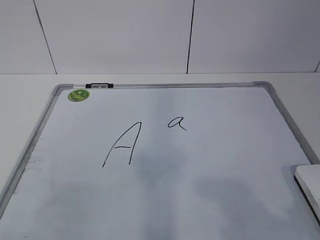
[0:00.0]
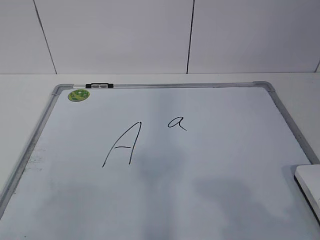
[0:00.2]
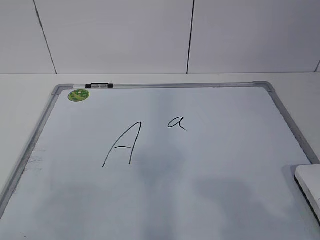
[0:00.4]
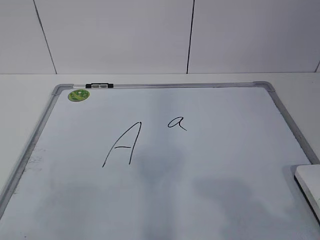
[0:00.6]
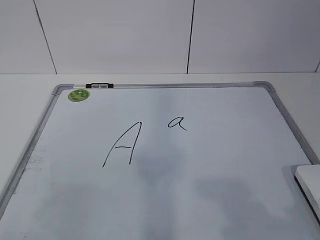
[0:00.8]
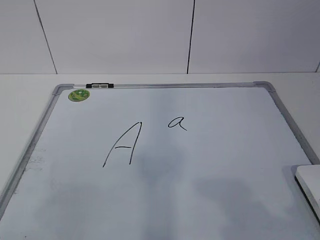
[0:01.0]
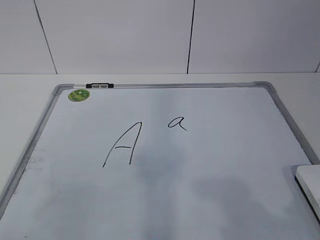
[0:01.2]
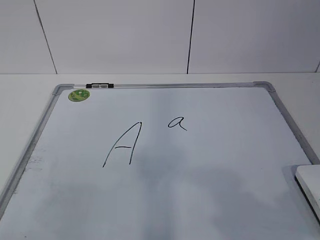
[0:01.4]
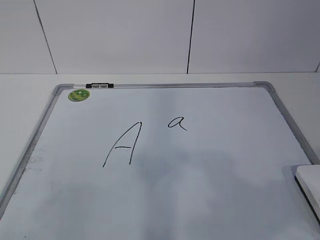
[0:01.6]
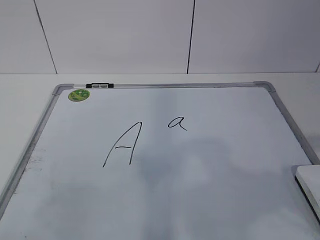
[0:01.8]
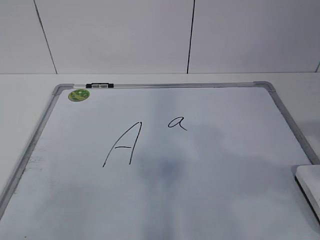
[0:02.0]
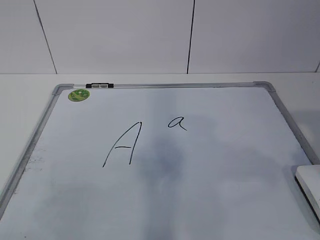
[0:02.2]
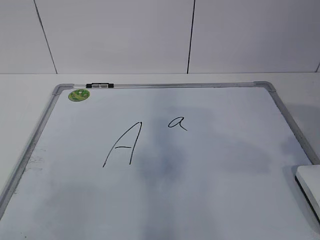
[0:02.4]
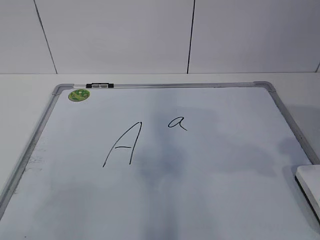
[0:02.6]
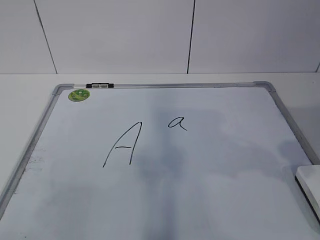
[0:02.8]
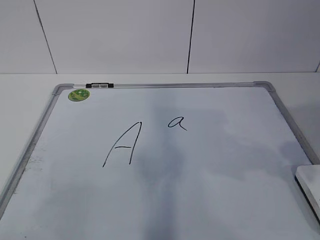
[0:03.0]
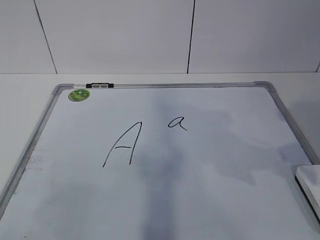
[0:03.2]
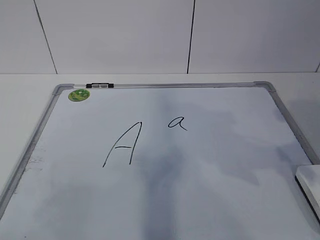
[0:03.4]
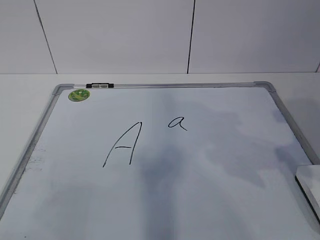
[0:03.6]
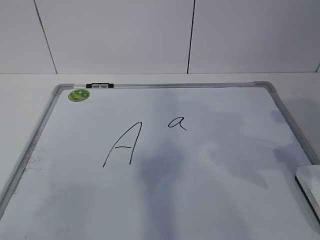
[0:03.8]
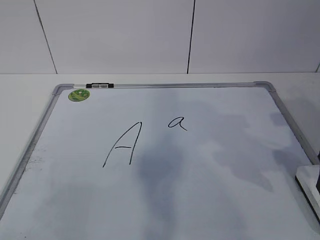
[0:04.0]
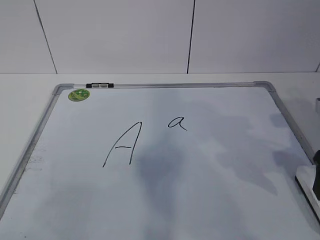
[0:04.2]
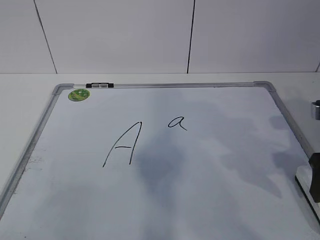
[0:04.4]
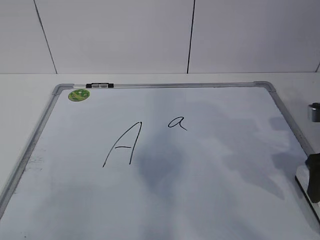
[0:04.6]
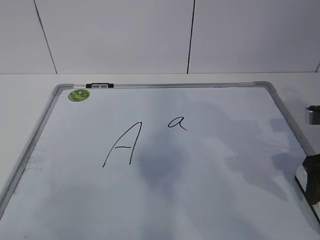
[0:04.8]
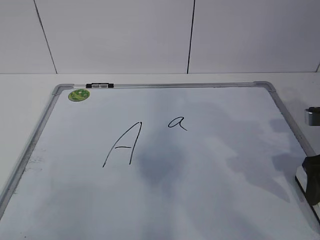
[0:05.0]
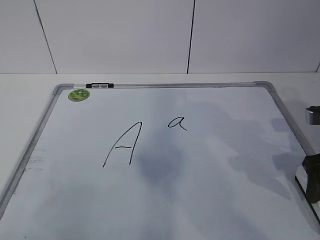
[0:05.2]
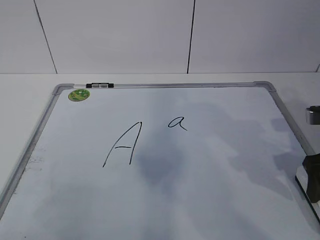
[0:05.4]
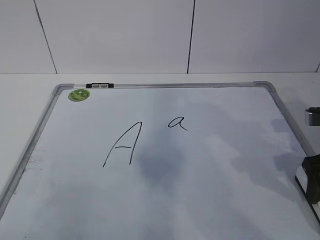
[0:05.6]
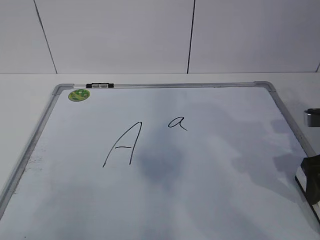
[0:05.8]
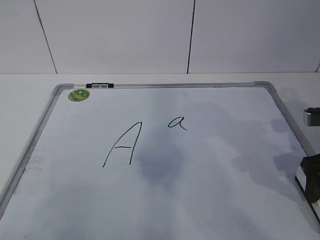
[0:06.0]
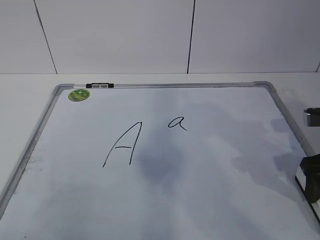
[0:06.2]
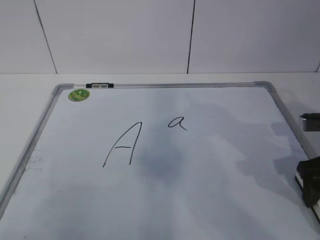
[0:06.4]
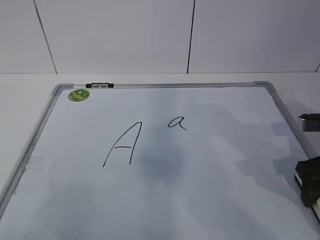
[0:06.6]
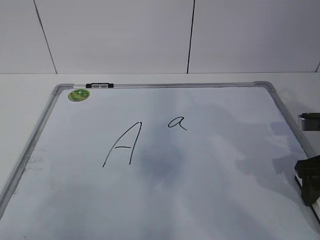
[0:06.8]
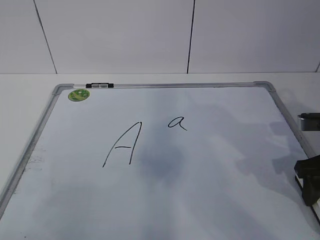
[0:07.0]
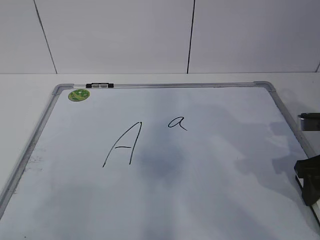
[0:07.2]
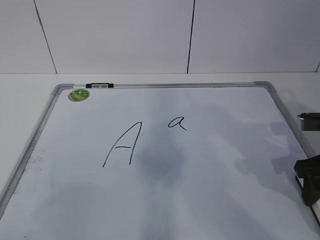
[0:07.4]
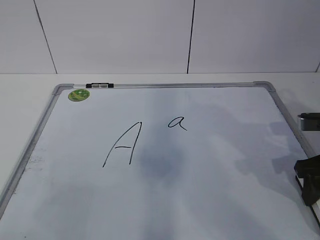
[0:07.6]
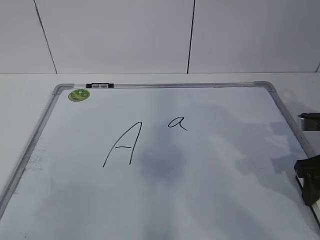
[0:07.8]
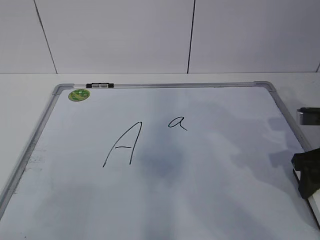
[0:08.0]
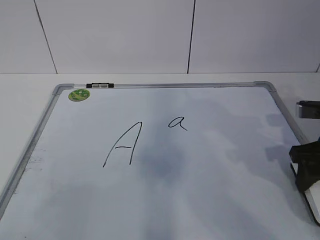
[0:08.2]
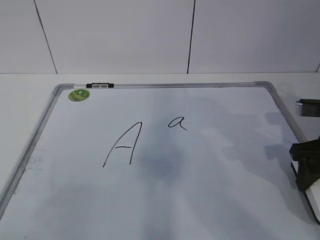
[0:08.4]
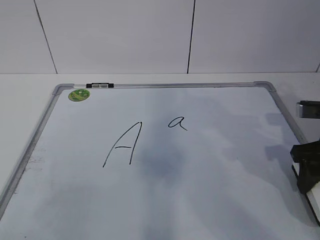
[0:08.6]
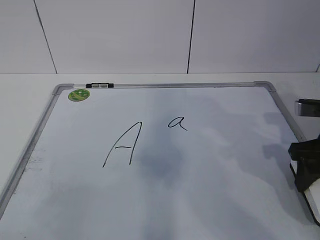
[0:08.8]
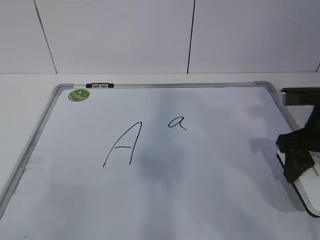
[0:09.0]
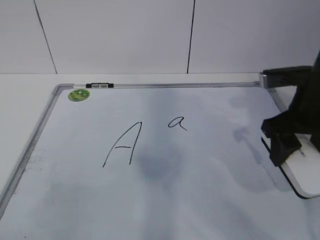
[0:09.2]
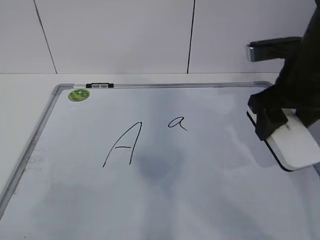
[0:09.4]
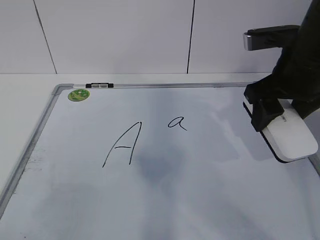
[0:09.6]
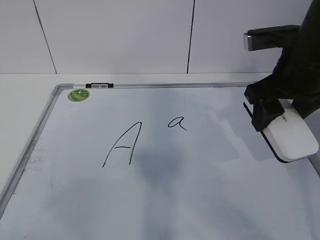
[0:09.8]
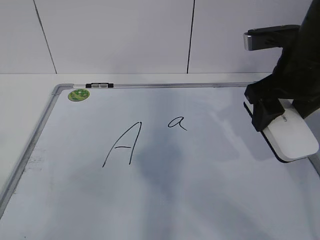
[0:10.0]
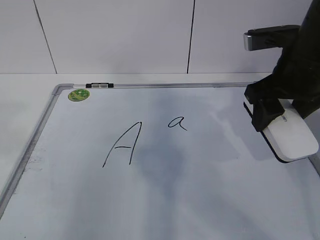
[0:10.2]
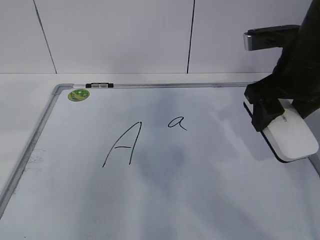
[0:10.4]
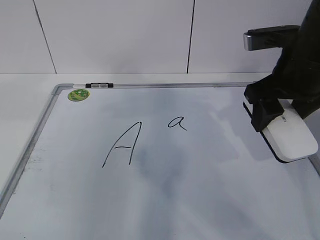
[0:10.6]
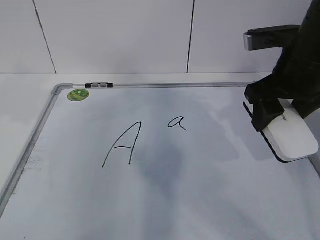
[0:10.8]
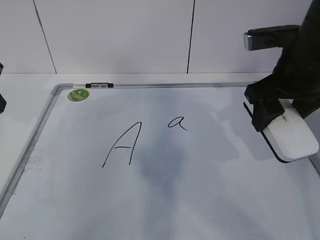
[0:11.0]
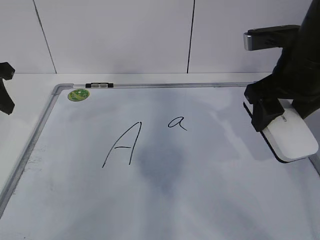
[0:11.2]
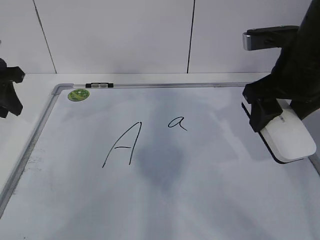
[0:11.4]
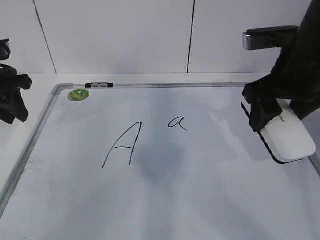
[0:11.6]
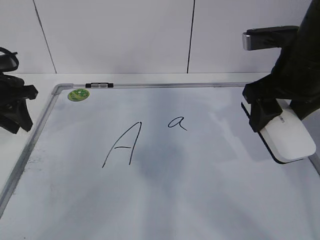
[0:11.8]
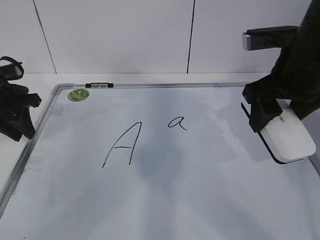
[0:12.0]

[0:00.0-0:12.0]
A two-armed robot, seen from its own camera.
Task of the whole recording: pick up the eraser on the blackboard and erase the letter "a".
Step, 0:06.6 to 0:10.8: Hold the drawing board steady with your left hand.
0:03.0 to 0:04.4: The right gripper is displaced downward and forward by about 10 cm.
0:06.0 to 0:07.6: The right gripper closes up.
0:07.6 to 0:09.0: The right gripper moves about 5 cm.
0:09.0 to 0:10.4: The right gripper shifts some 10 cm upward and to the left.
0:10.4 to 0:12.0: The left gripper shifts approximately 30 cm forward and downward.

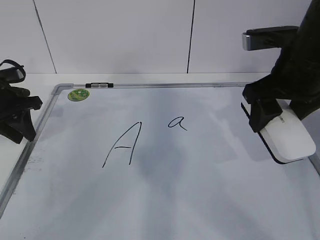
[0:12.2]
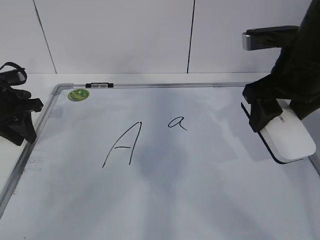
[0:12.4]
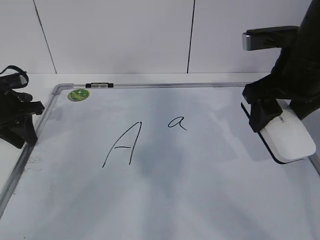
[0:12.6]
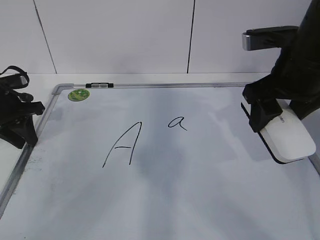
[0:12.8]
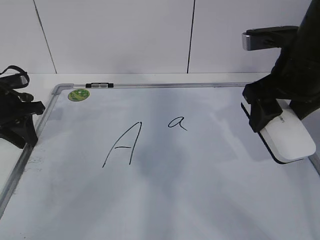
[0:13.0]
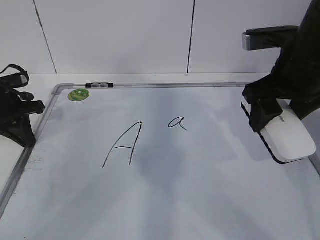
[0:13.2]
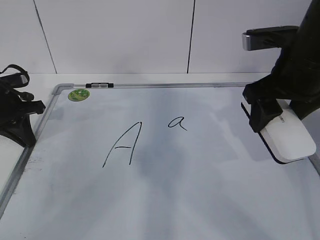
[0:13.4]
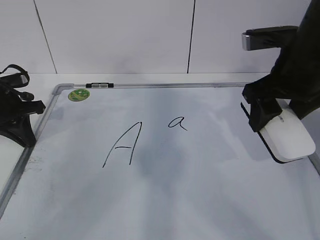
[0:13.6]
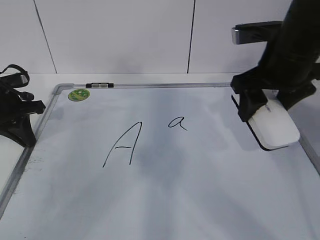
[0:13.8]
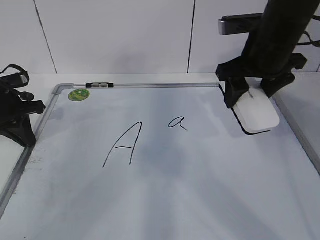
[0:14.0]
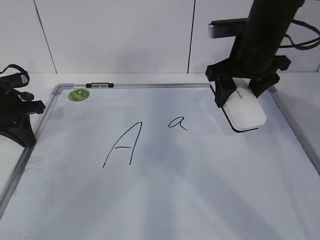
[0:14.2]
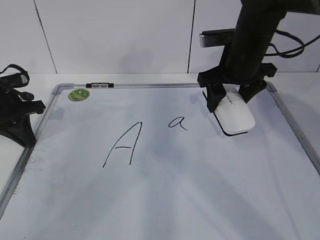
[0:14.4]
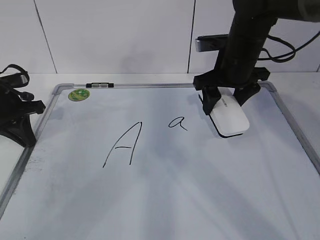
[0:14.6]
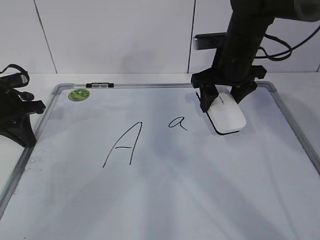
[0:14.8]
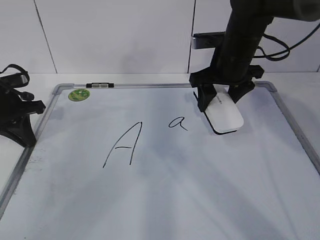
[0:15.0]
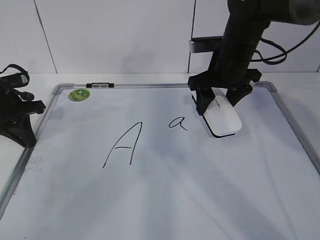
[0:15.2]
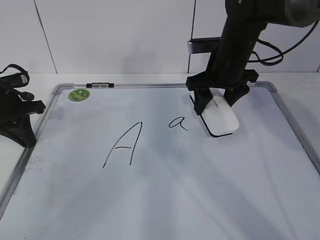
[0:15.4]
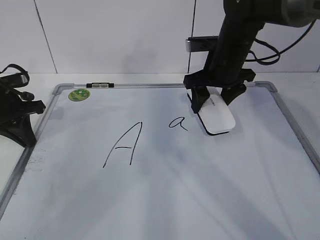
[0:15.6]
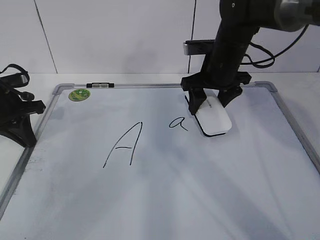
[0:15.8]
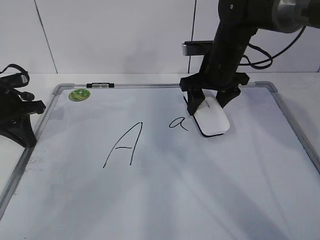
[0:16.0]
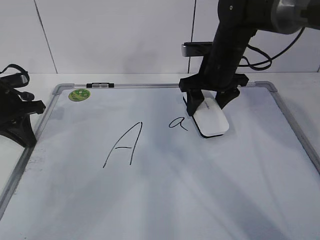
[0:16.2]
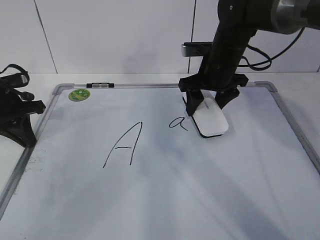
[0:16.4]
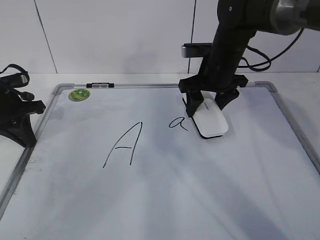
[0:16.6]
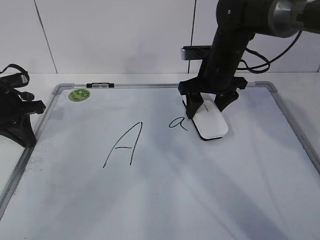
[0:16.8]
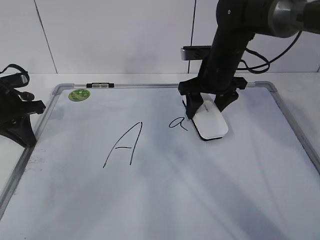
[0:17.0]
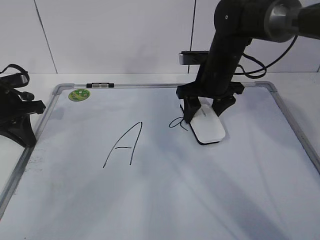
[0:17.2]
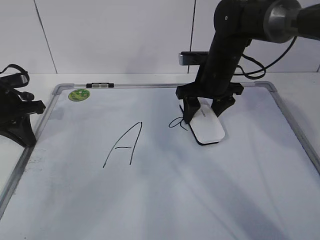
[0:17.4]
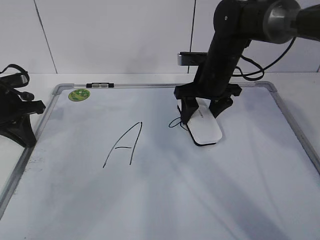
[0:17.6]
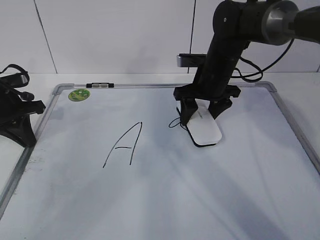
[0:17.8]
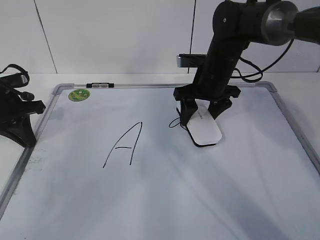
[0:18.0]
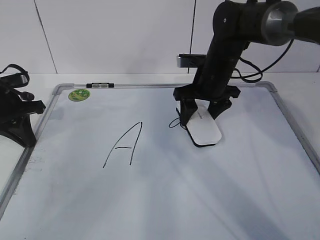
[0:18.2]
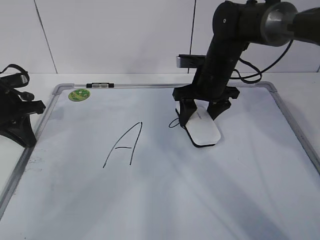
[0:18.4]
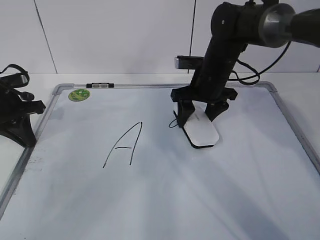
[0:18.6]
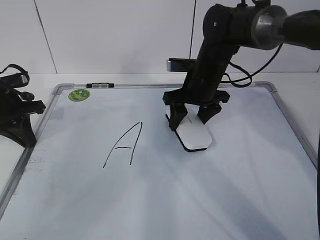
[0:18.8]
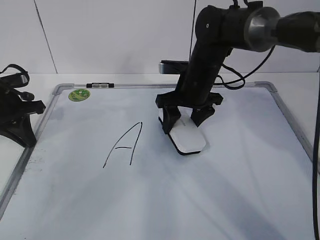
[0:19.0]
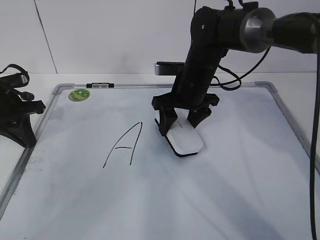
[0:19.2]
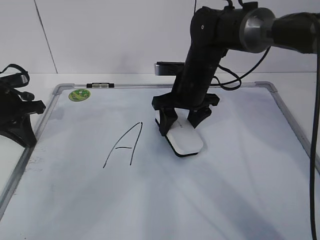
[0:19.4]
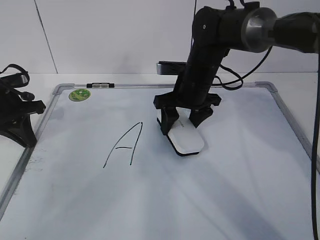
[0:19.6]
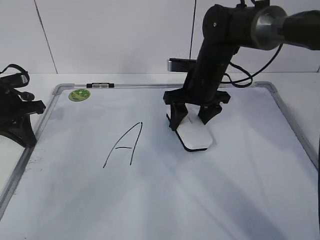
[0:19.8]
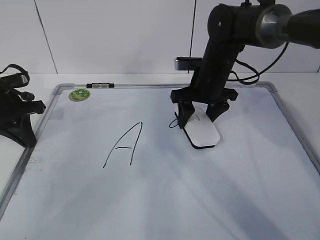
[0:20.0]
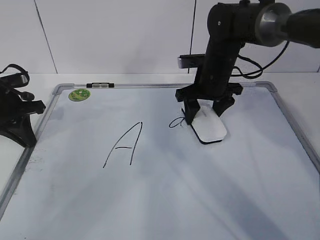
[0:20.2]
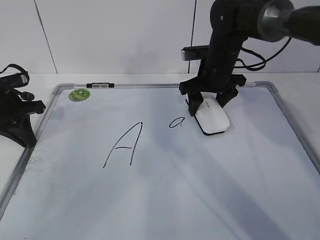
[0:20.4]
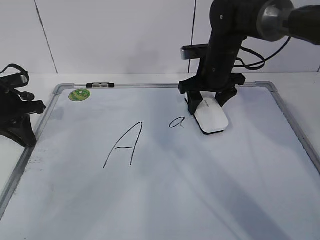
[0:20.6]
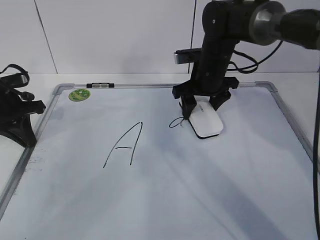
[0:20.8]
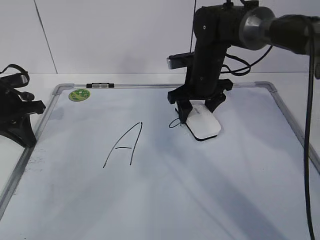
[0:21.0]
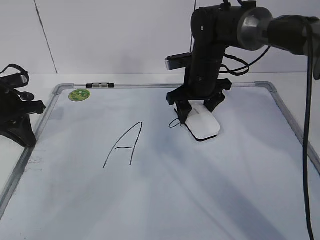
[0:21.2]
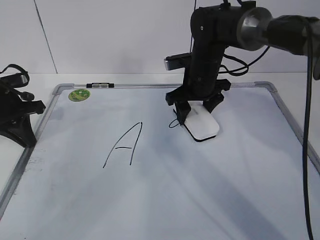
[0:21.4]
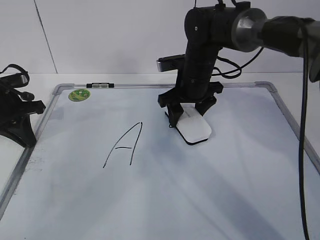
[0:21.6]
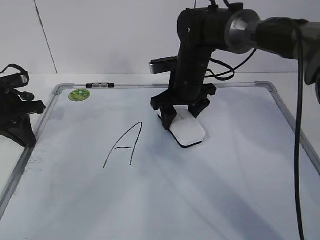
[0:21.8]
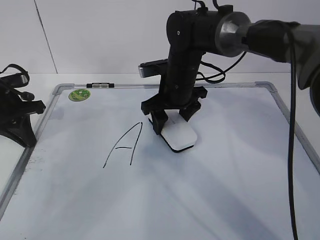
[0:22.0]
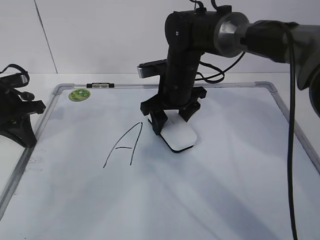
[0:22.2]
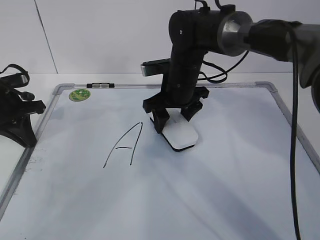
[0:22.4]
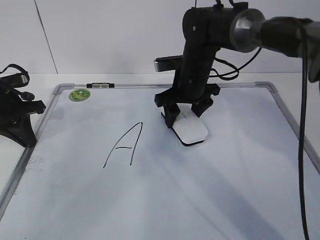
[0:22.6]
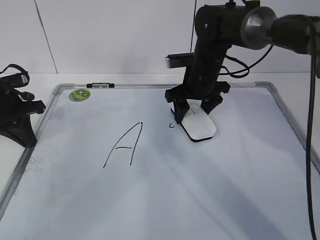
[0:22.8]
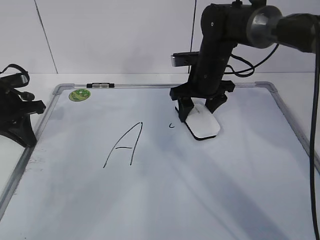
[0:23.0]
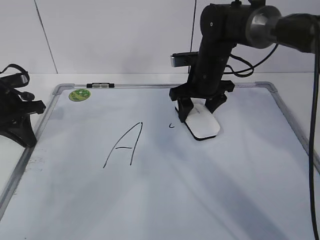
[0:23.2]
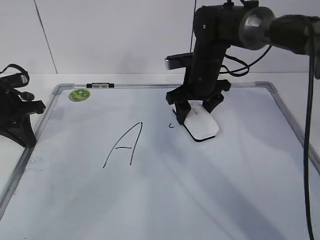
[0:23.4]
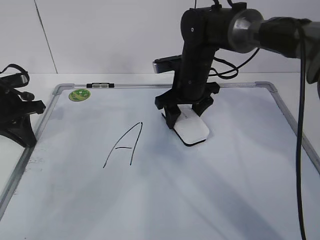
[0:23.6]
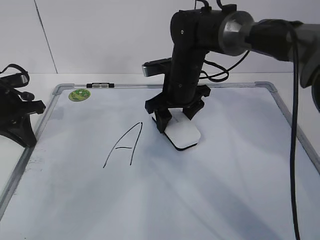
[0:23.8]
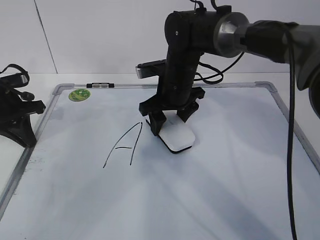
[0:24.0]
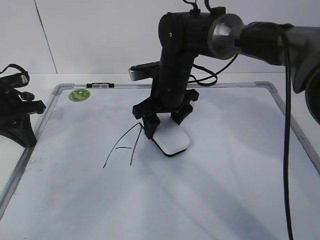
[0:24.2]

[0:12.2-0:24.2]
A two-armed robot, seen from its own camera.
Task of the whole recording: pick up the eraser on the blackboard and erase the letter "a".
Step, 0:12.2 to 0:21.4: Erase the letter a with your right hand.
0:12.2 to 0:13.8: The left gripper closes.
0:13.8 to 0:15.2: The right gripper shifts roughly 10 cm forward and downward.
0:15.2 to 0:18.2: The grippers stay close to where they were, moving slightly.
0:18.2 to 0:21.2: The grippers move only a little.
0:21.2 to 0:22.6: The grippers move only a little.
0:22.6 to 0:24.2: The right gripper shifts approximately 5 cm to the left.
